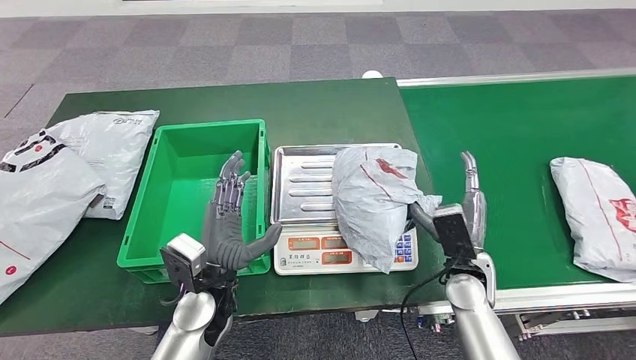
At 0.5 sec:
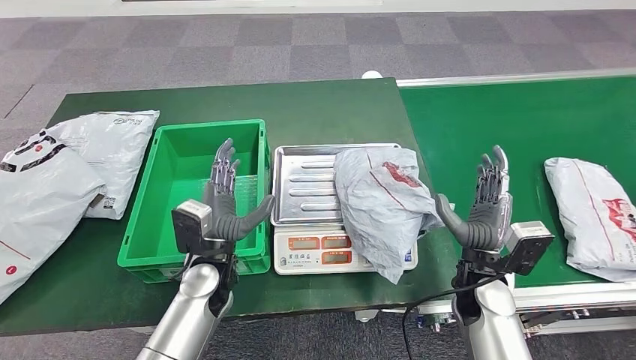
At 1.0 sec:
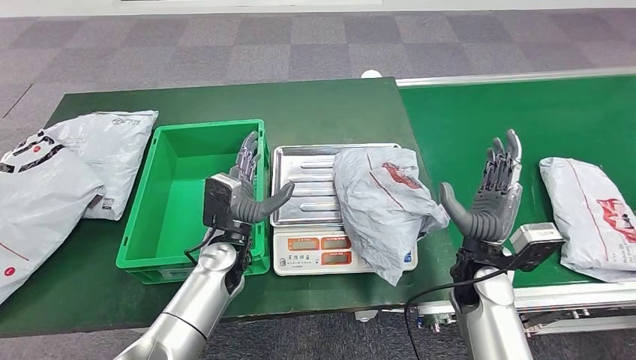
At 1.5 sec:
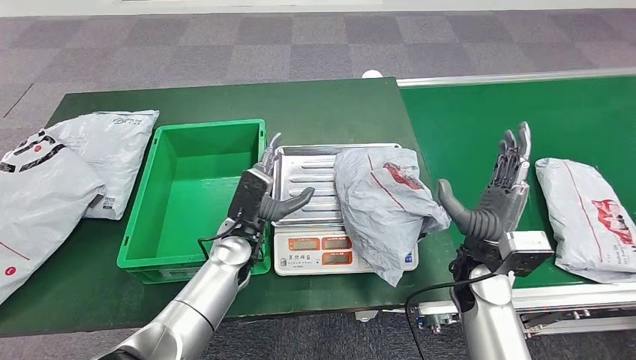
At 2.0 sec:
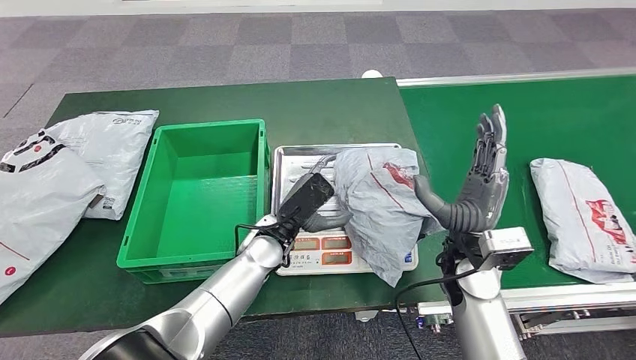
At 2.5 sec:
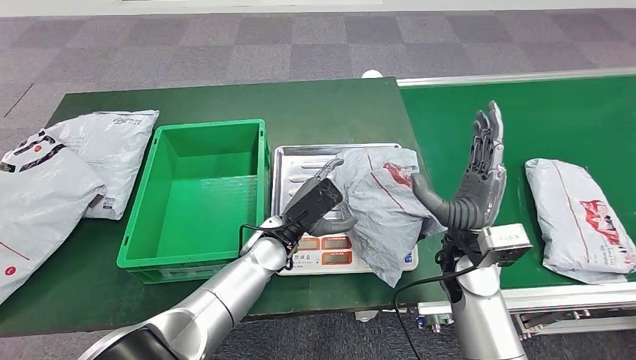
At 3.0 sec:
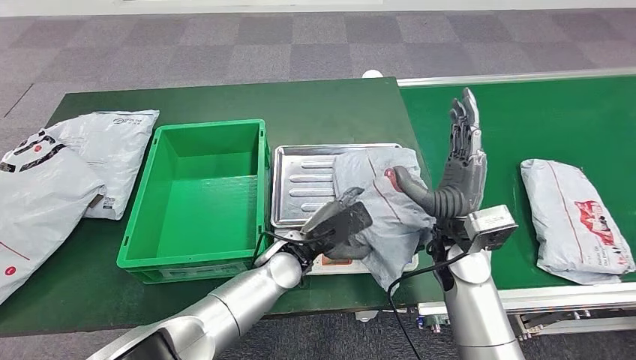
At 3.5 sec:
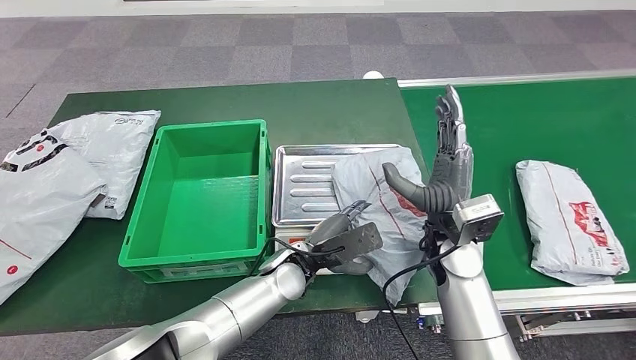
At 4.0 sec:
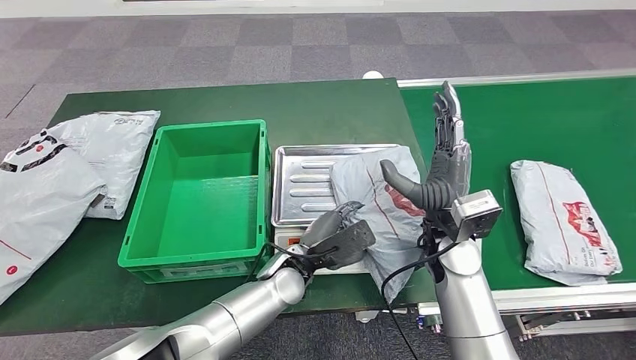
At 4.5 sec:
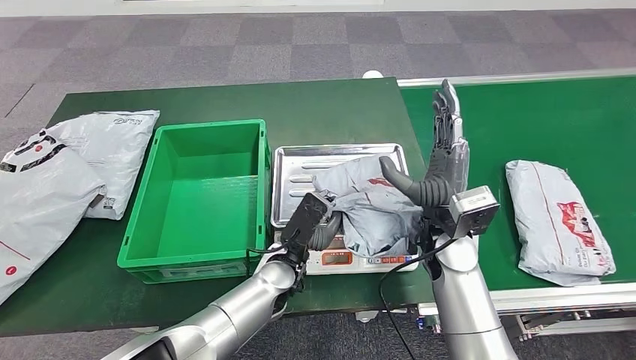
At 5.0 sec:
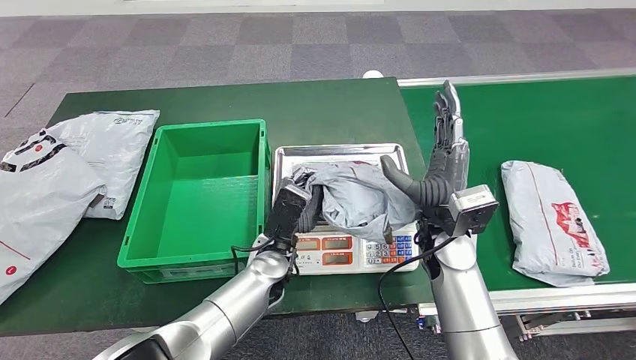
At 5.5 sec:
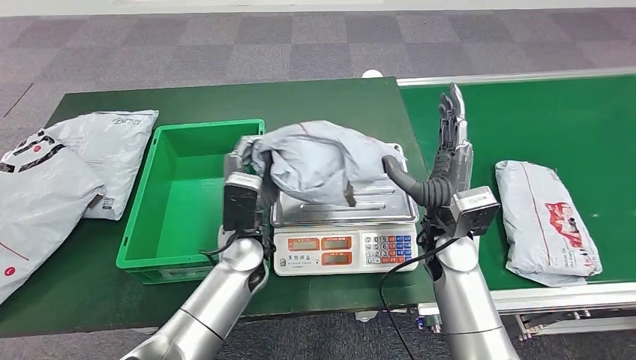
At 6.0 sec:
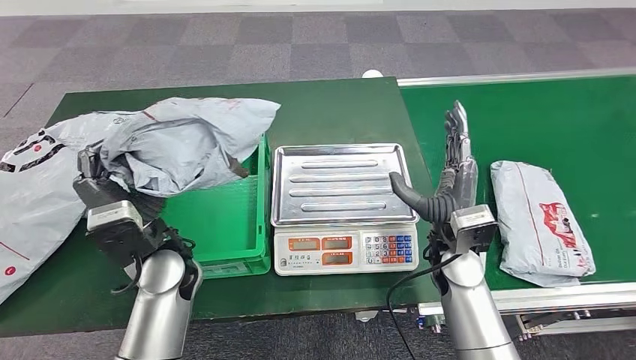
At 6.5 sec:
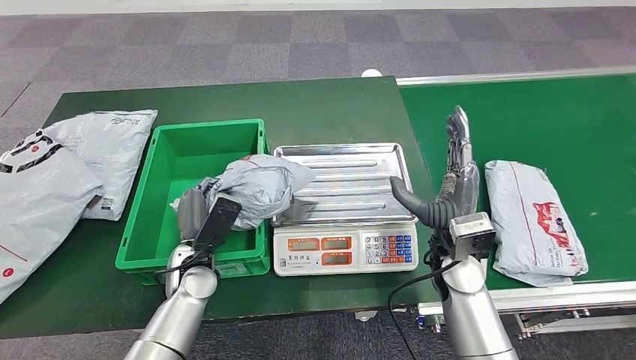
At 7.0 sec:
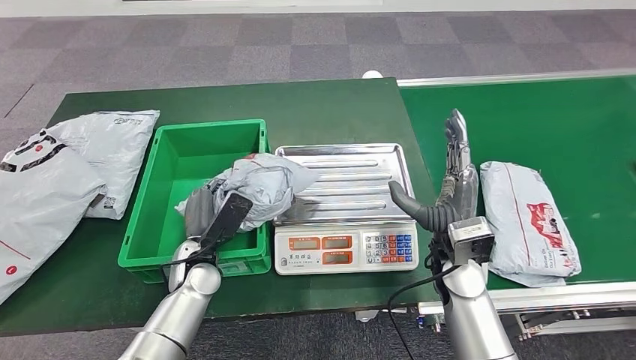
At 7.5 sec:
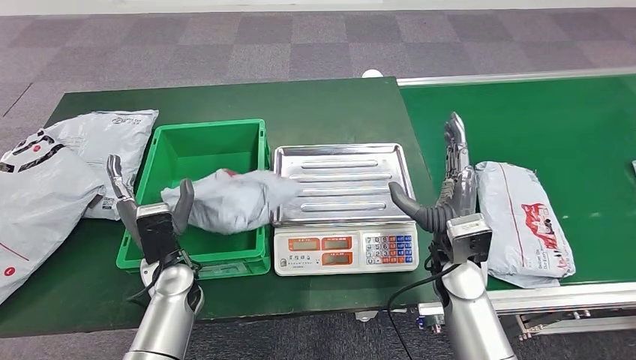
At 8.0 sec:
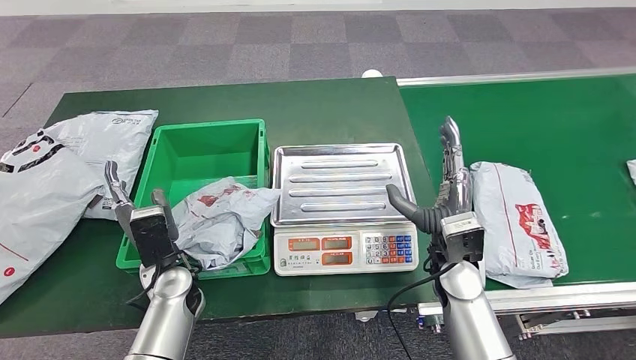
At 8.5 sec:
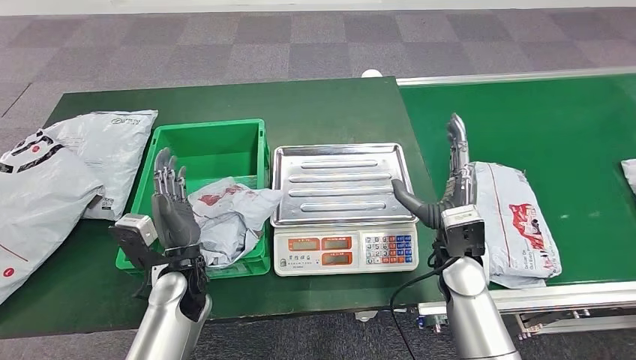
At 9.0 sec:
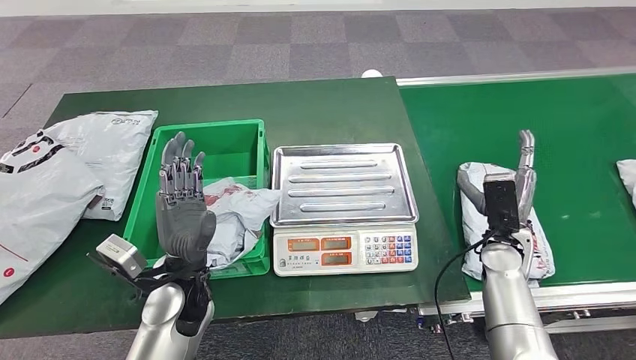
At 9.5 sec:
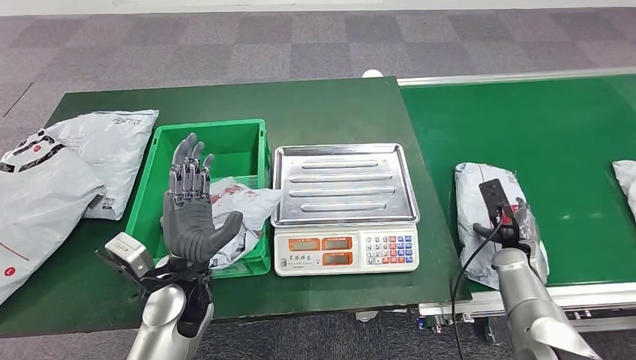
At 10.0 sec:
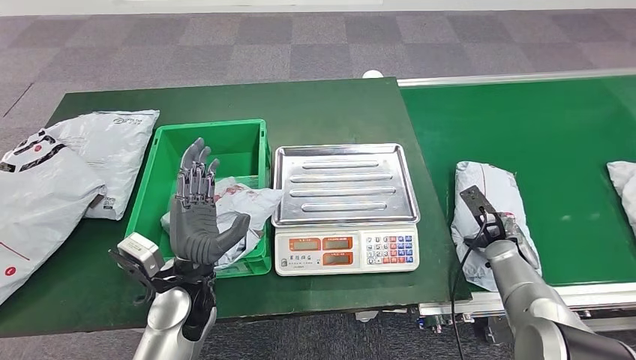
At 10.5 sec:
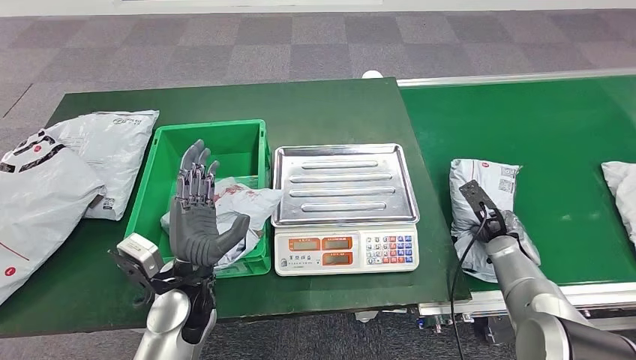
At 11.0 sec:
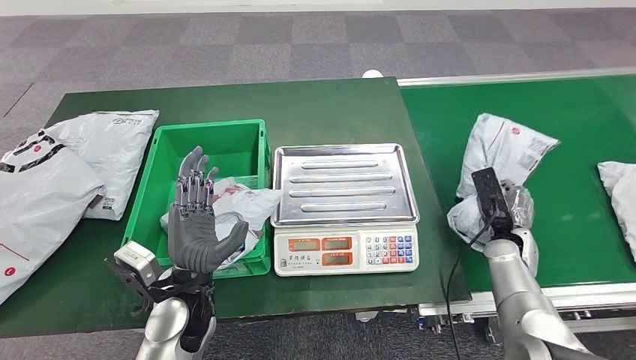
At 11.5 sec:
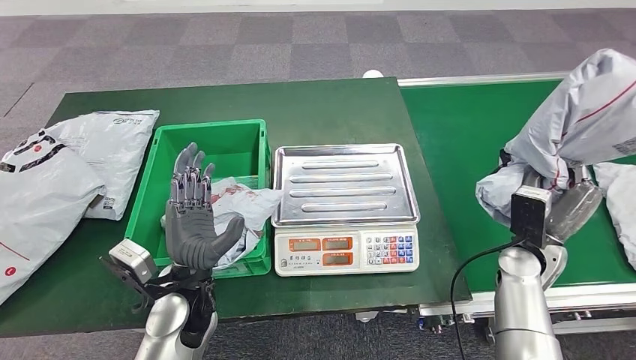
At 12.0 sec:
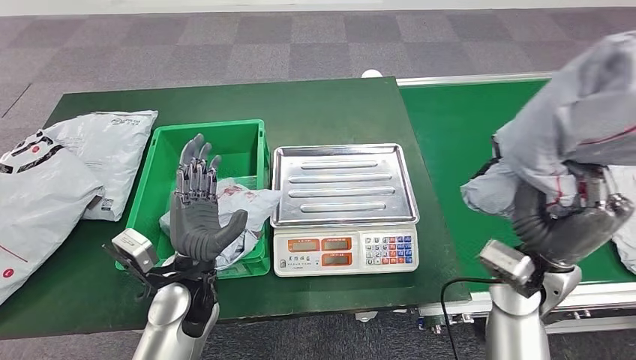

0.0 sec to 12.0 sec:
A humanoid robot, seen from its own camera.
Step, 4.0 sec to 5.5 sec: Pick up the parcel from the inbound machine.
Step, 6.0 sec to 8.5 sec: Put the parcel inside the courier box.
Step, 10.5 sec to 11.0 sec: Pick up the parcel from the conveyor belt.
0.0 sec to 2.0 sec: The left hand is displaced forward and to the right by approximately 10 cm. Meanwhile the right hand travels upward by about 5 cm.
8.0 sec to 10.0 sec: The left hand changes place by some 10 cm, while the right hand goes roughly 20 cm to the right and downward.

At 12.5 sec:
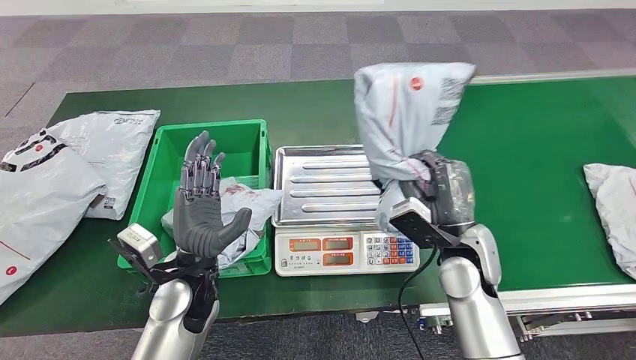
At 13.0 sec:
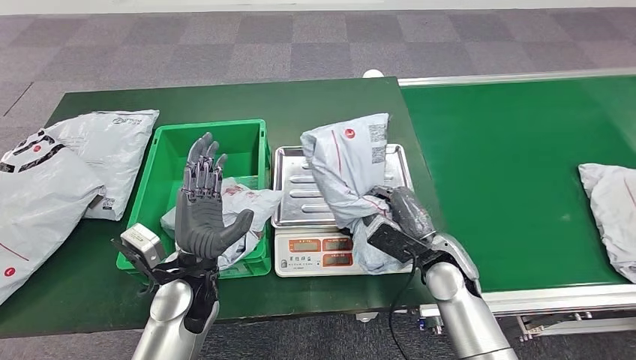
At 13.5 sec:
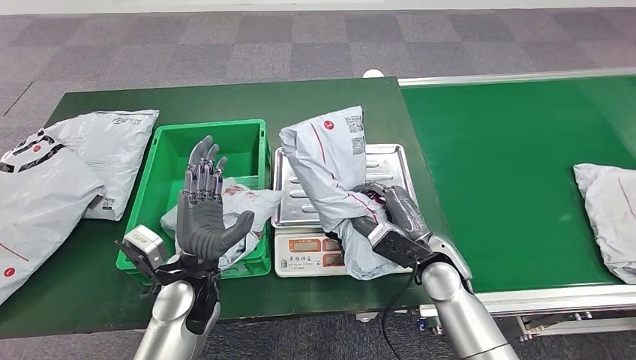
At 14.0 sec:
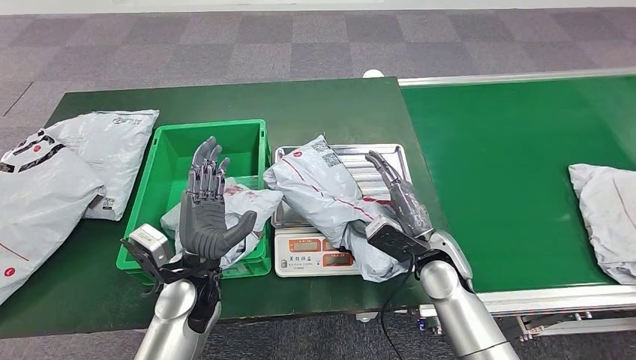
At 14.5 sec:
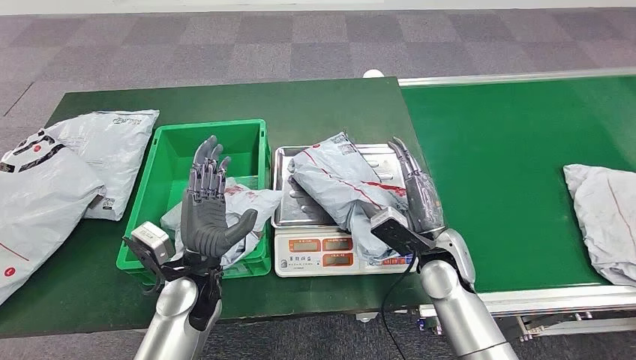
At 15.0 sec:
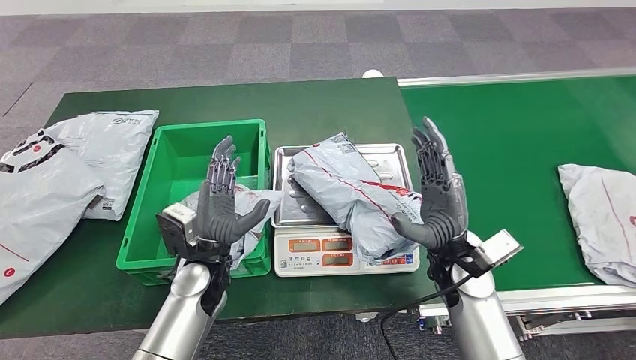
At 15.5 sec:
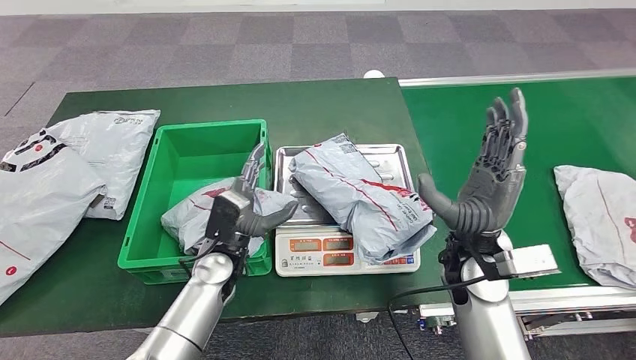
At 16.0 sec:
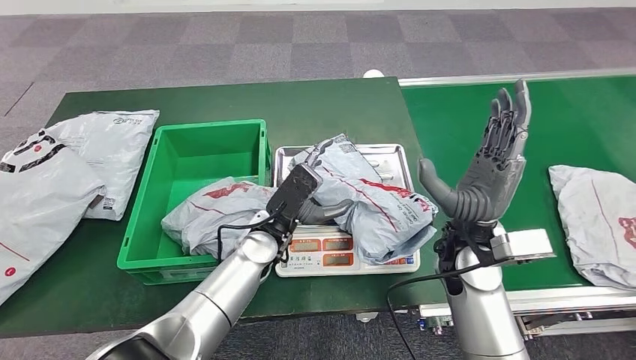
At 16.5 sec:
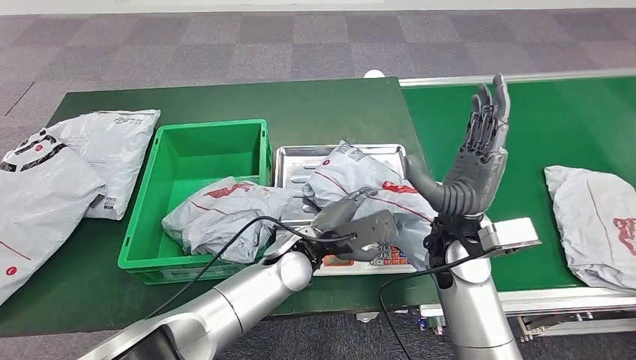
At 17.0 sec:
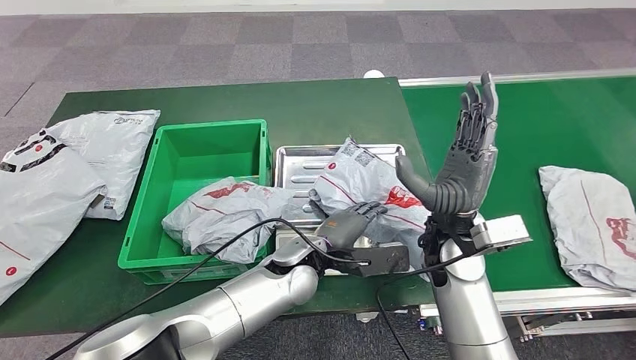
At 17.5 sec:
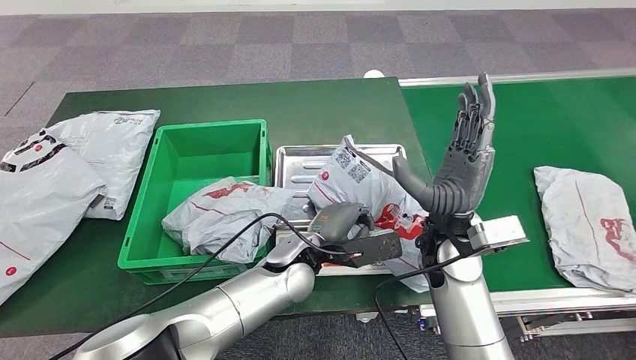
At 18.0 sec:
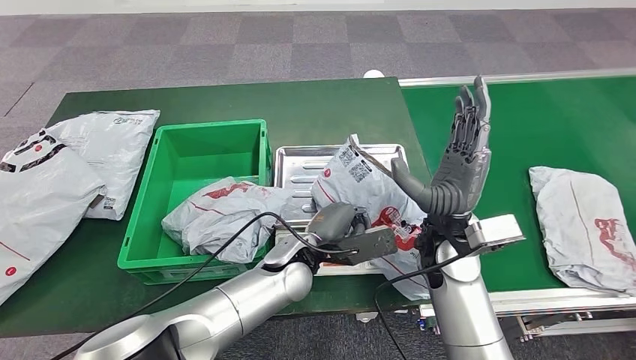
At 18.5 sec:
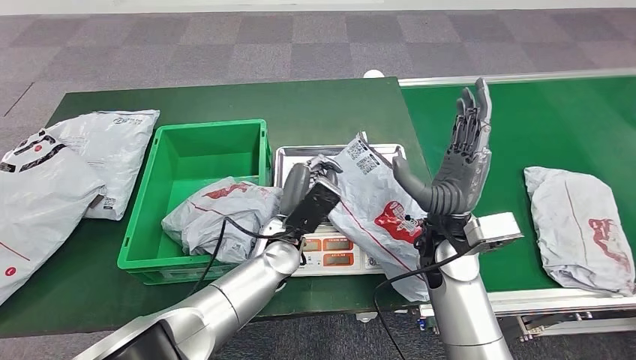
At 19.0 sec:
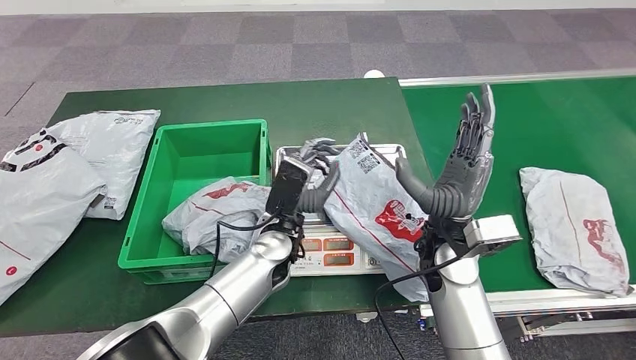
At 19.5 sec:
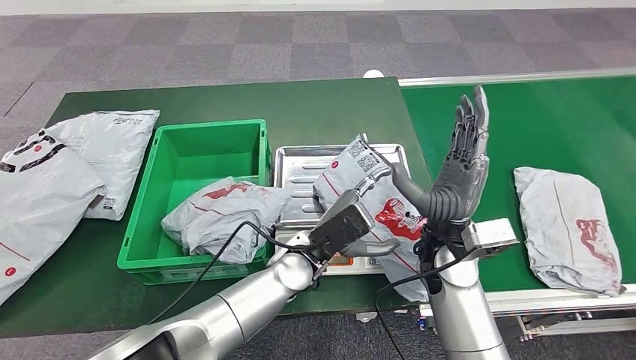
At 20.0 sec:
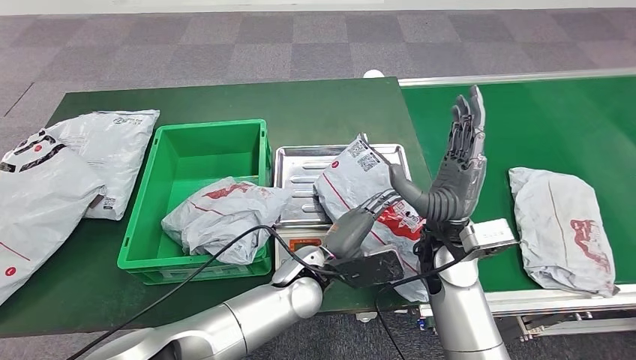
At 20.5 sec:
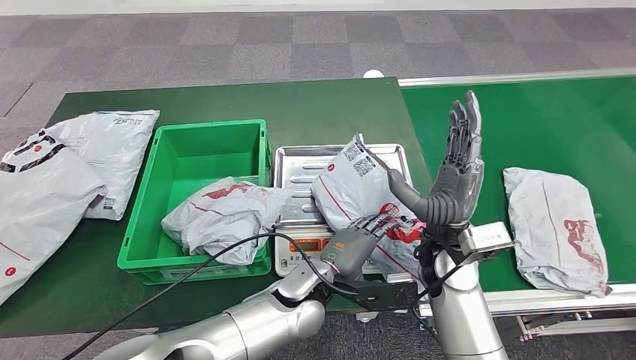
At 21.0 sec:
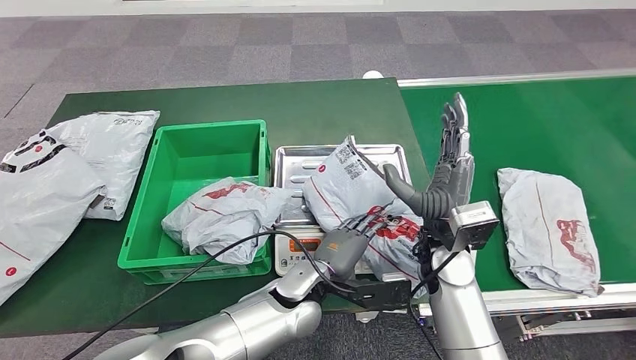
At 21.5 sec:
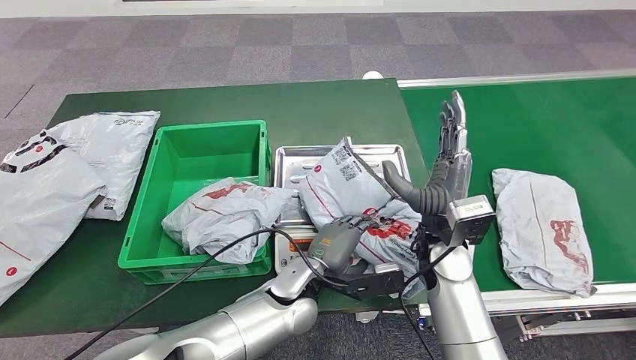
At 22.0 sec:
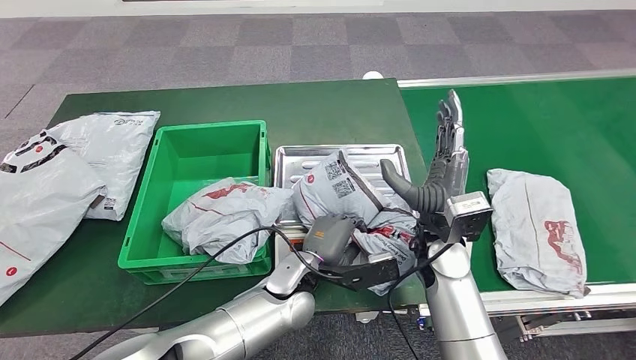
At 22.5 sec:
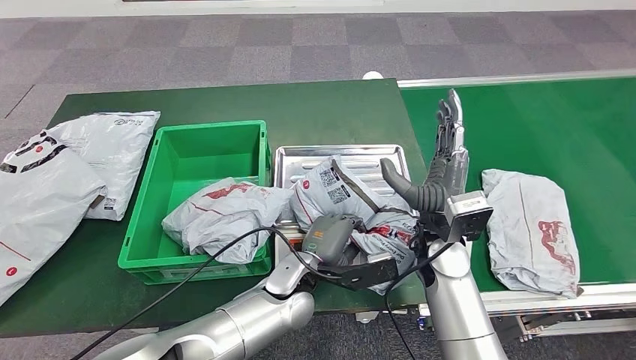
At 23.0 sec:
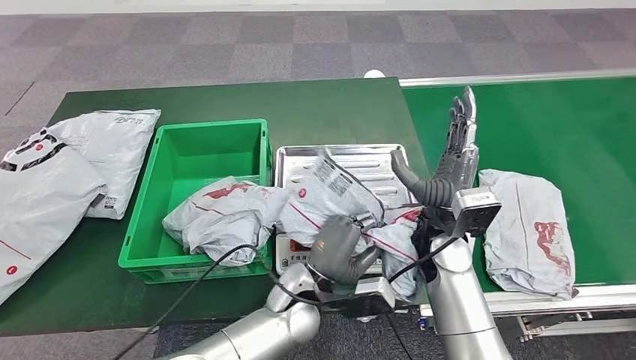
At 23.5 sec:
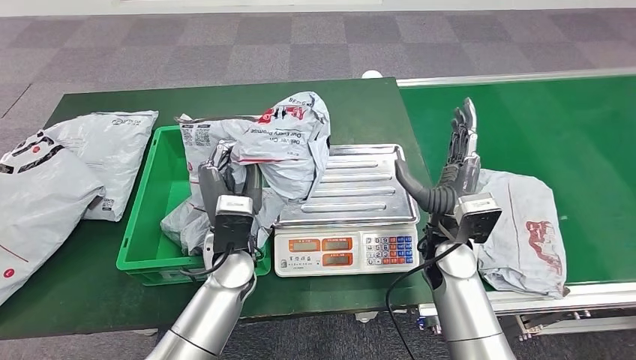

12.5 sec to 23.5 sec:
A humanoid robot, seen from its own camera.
Step, 12.5 sec to 15.5 sec: Place the parcel onto the inbound machine.
Step, 16.5 sec to 23.0 sec: Pick up the parcel from the inbound machine.
